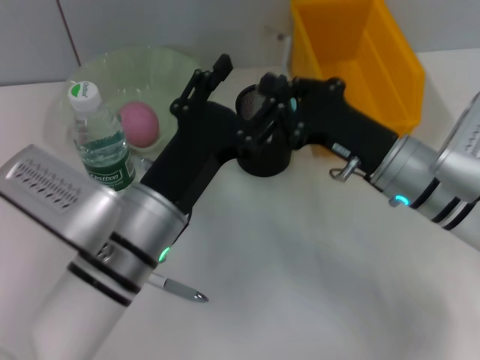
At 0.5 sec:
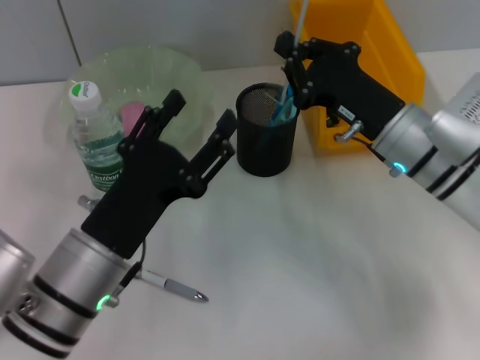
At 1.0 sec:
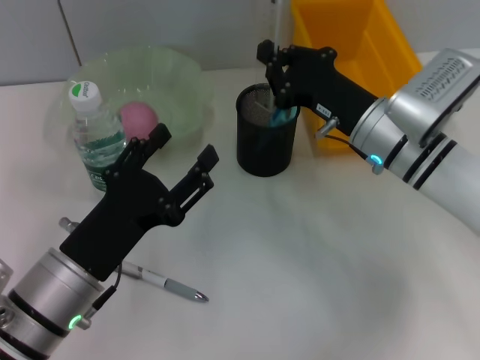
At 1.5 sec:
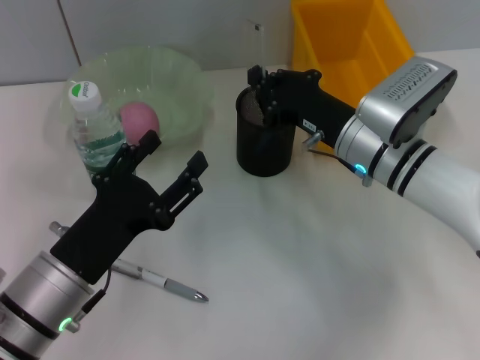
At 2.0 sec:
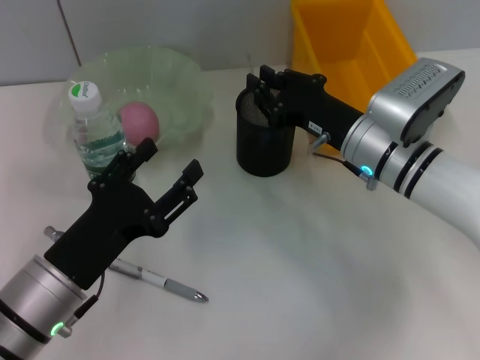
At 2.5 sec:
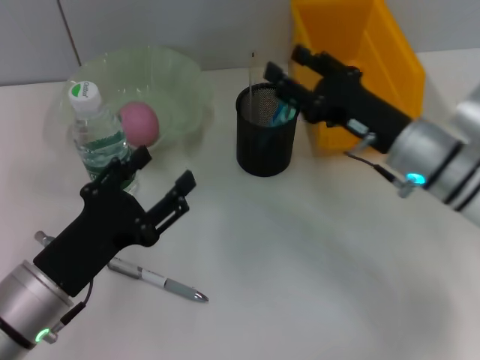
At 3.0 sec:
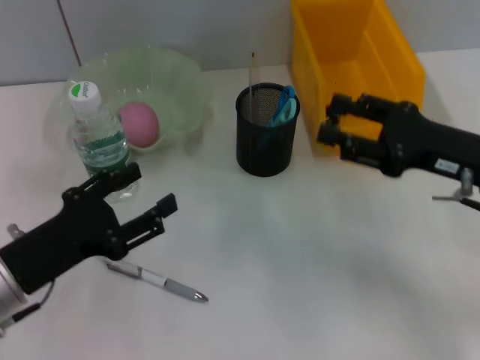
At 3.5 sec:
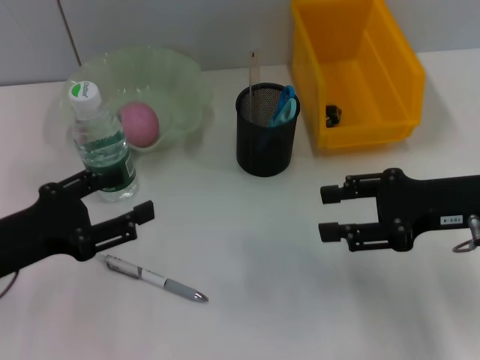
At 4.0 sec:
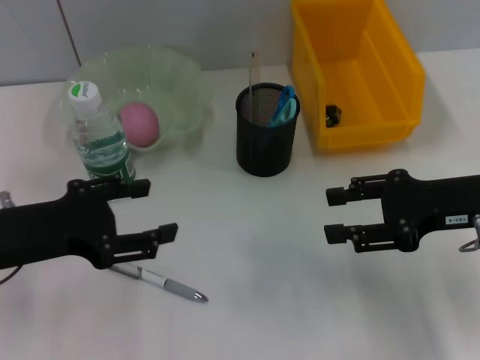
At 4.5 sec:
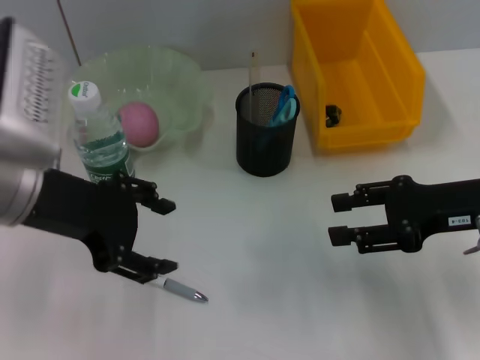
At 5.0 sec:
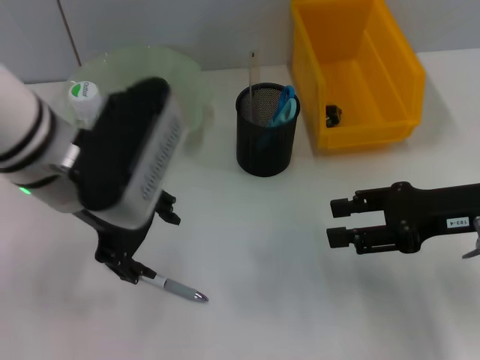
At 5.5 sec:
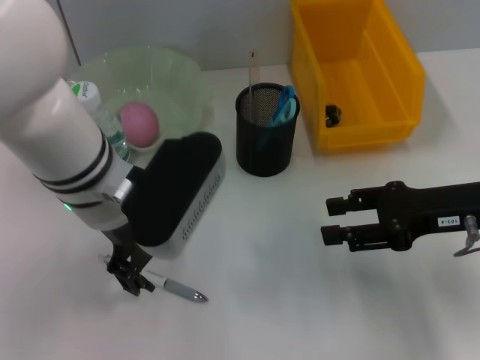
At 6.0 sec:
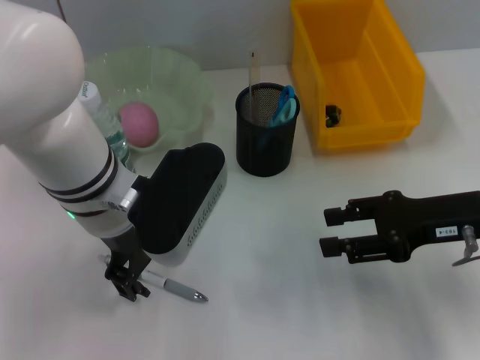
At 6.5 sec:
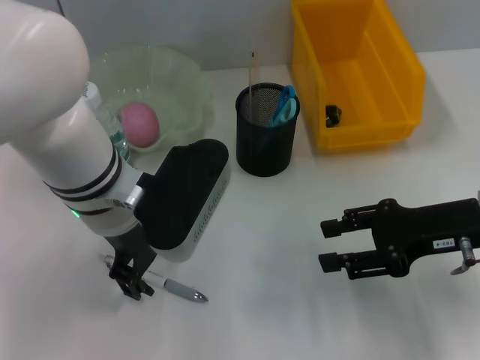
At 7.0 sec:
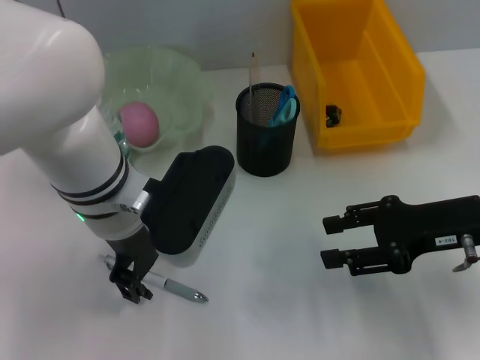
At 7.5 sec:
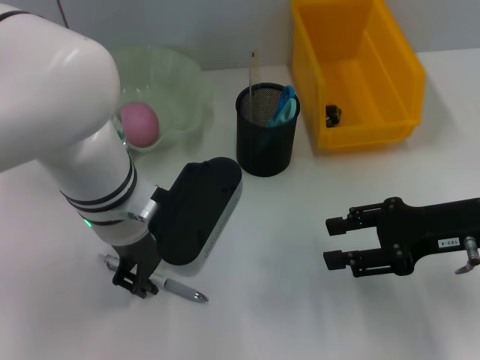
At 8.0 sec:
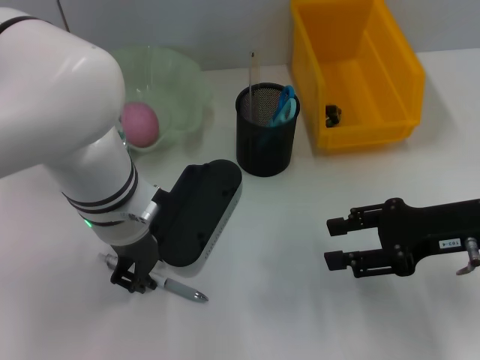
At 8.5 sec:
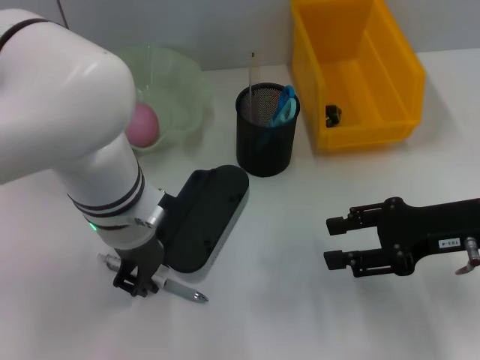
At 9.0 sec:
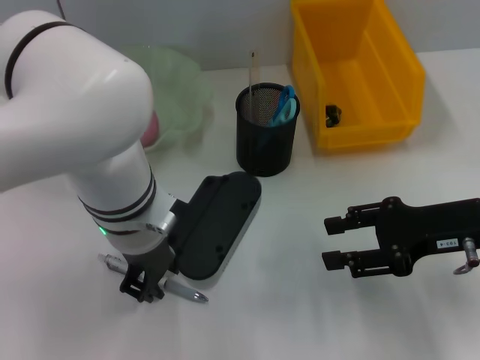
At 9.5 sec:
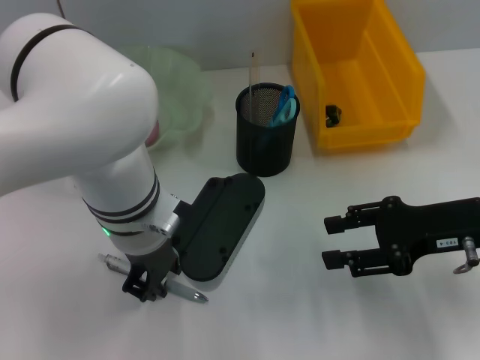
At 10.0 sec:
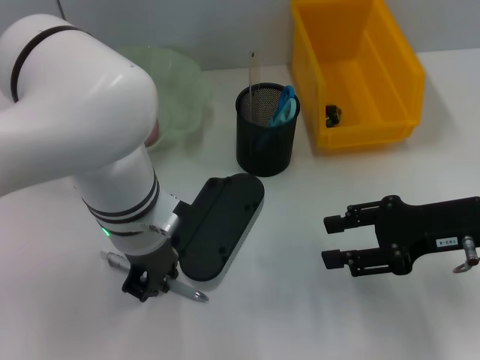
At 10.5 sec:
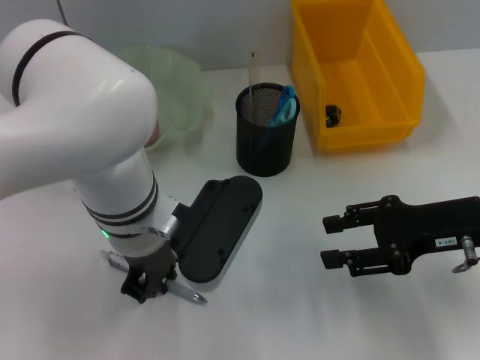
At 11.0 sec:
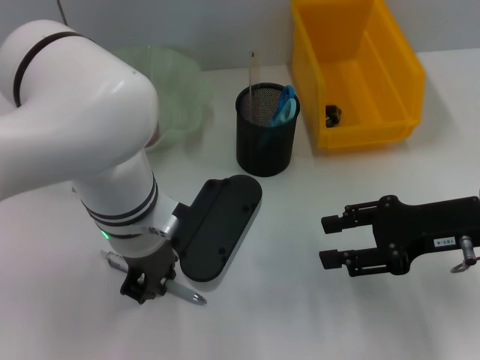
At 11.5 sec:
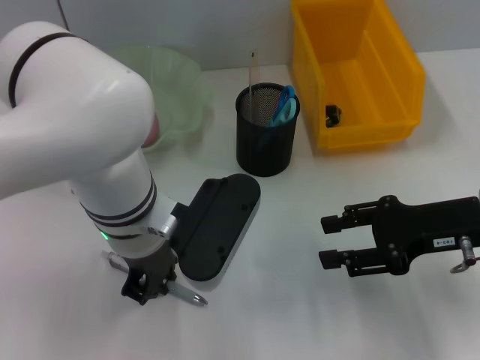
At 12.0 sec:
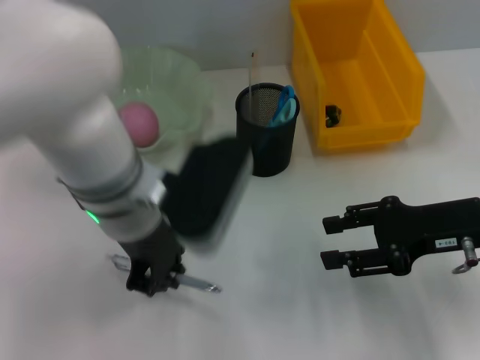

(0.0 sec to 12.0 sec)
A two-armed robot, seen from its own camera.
Step, 0.0 sec - 2.0 sec: Place the ruler into the pen holder with the right hand.
Step, 2.5 sec - 11.5 sec: Grab the gray spring-action pen with the left hand.
0.0 sec - 2.0 sec: The left gripper goes some 10 cm to the left.
2.0 sec - 4.0 sec: The right gripper shifts about 15 cm to the right, backward and upward, and opens its fingers. Meanwhile the left gripper is displaced upward and to the left by about 10 cm.
4.0 sec - 6.0 sec: The left gripper moves to the right and forward, some 15 cm.
6.0 sec - 8.0 sec: The left gripper closes up.
8.0 sec - 10.0 sec: The left gripper closes its fingers.
10.0 sec - 12.0 sec: The grippers move only a little.

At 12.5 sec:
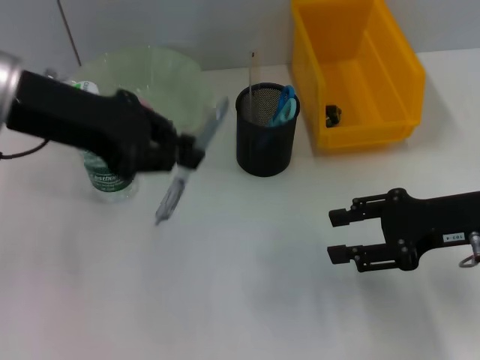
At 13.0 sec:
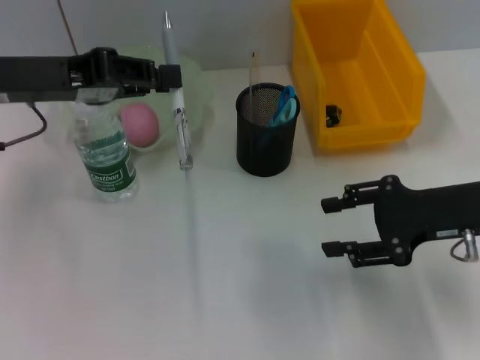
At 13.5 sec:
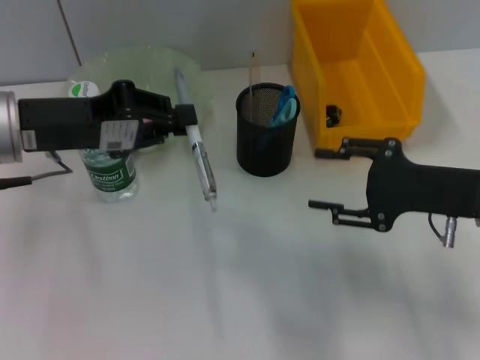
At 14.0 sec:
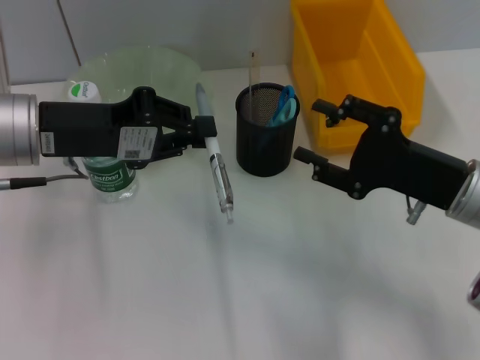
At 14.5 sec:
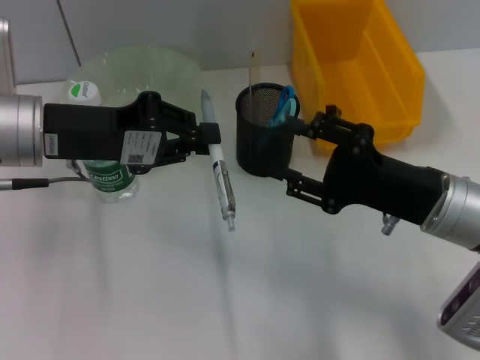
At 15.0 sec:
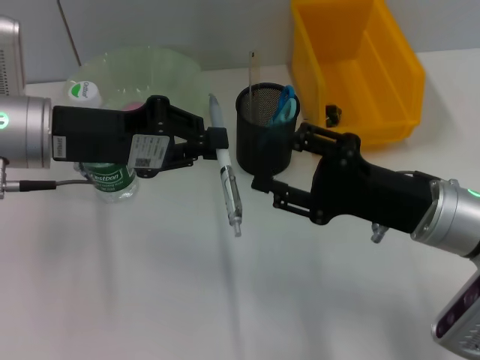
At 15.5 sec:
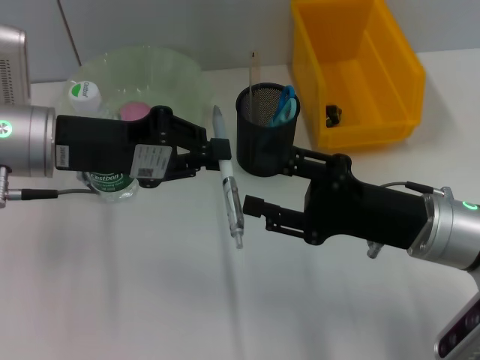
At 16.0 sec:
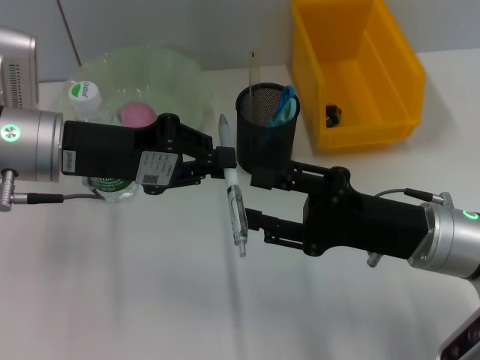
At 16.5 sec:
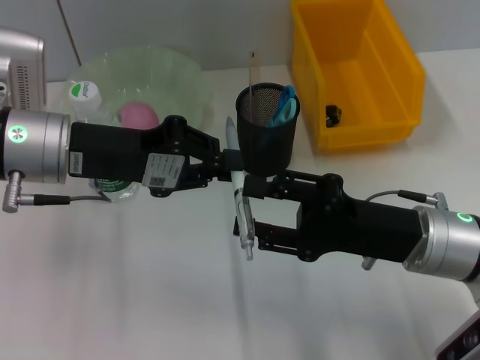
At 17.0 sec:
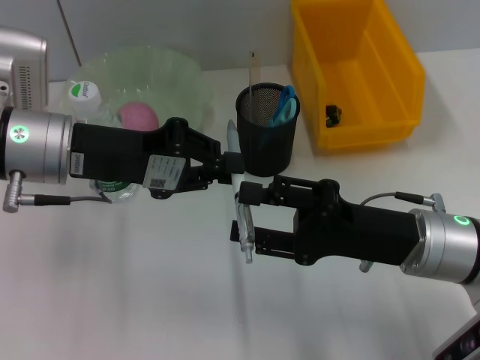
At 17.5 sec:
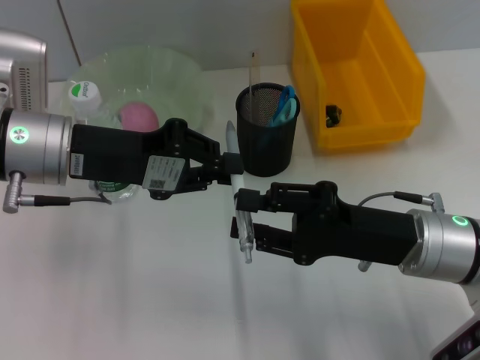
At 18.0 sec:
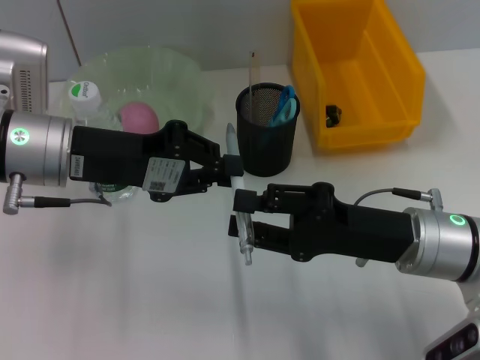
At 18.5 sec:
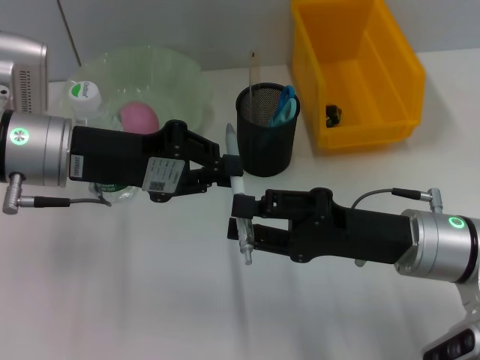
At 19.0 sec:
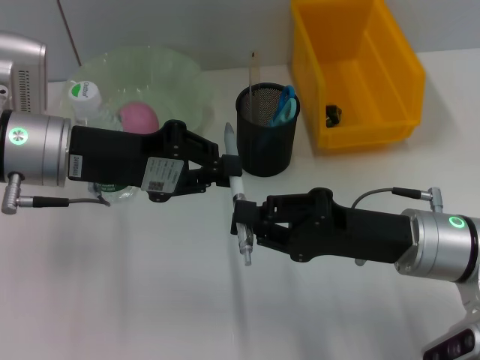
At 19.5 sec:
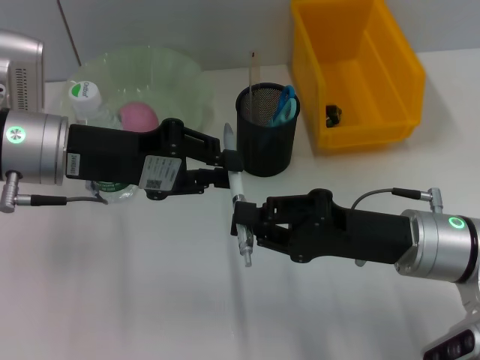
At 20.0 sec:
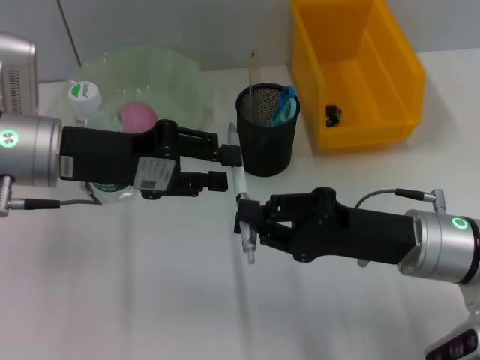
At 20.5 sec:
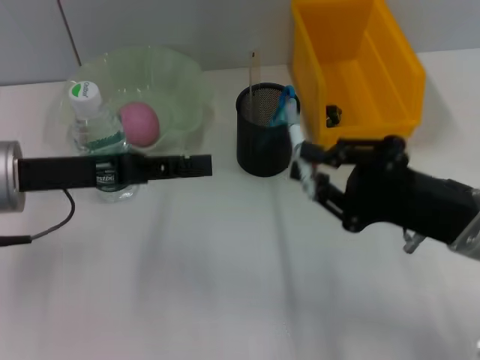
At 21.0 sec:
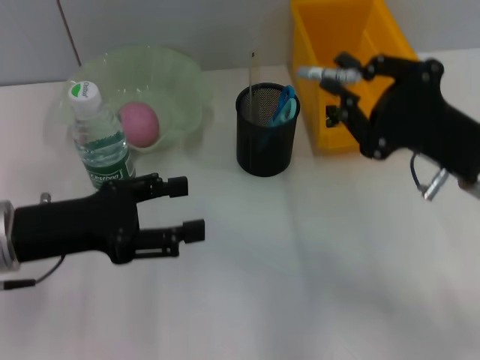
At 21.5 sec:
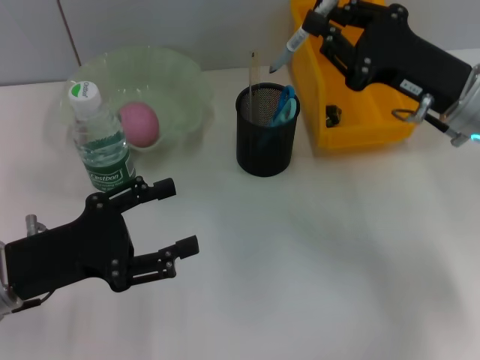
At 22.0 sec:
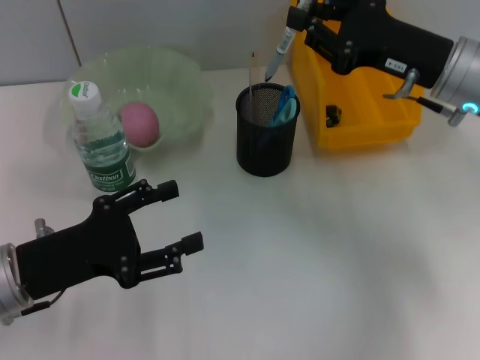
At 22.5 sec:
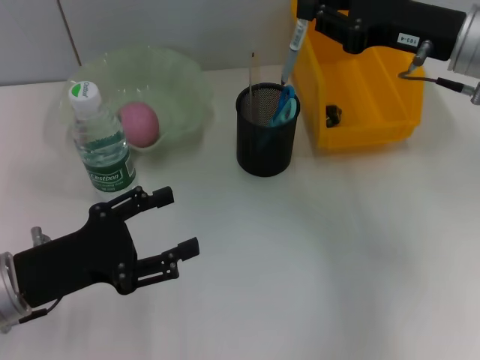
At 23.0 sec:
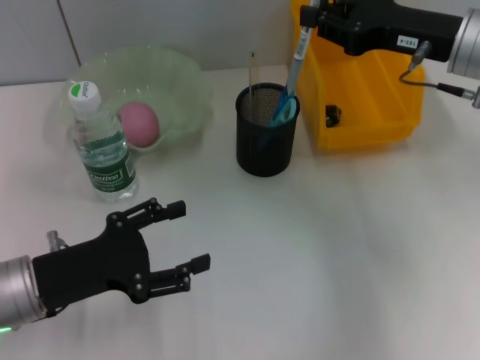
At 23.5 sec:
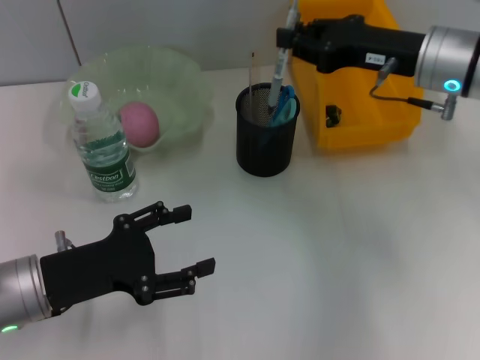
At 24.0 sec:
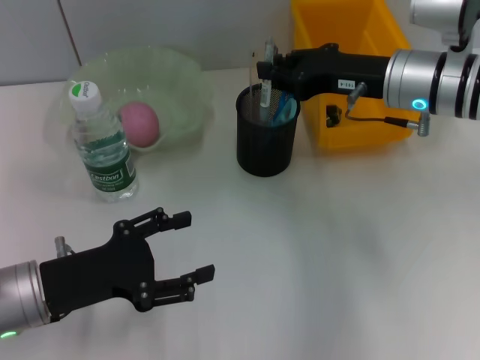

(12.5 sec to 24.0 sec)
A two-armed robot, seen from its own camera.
Step, 12.5 sec - 19.0 sec: Pass the gray spring-action pen from the left hand to the right hand.
12.5 sec - 14.5 sec: The left gripper shifts about 5 cm downward. The right gripper is displaced to the left by about 5 cm.
16.5 sec - 18.5 sec: The right gripper closes.
18.5 sec - 20.0 sec: The left gripper opens its fingers.
20.0 sec - 22.0 sec: The left gripper moves backward and downward, approximately 15 cm, and opens its fingers, while the right gripper heads forward and upward, covering some 15 cm.

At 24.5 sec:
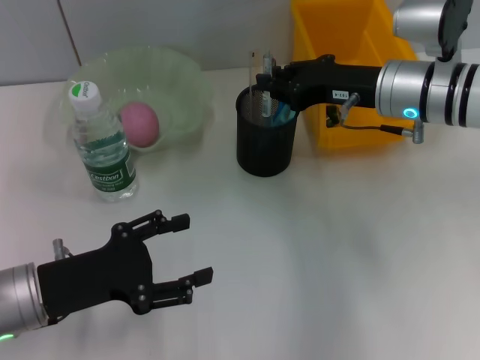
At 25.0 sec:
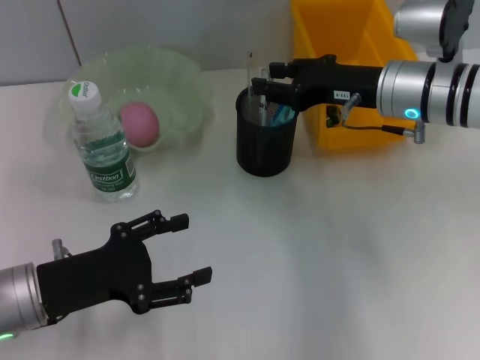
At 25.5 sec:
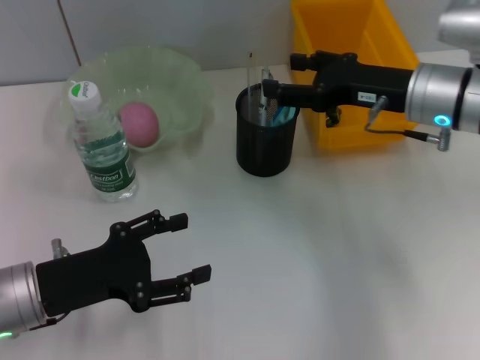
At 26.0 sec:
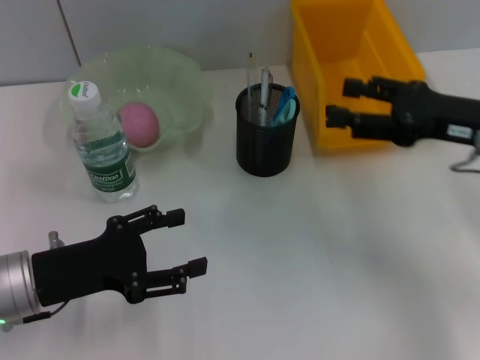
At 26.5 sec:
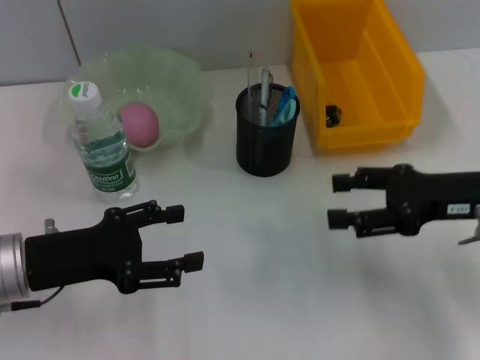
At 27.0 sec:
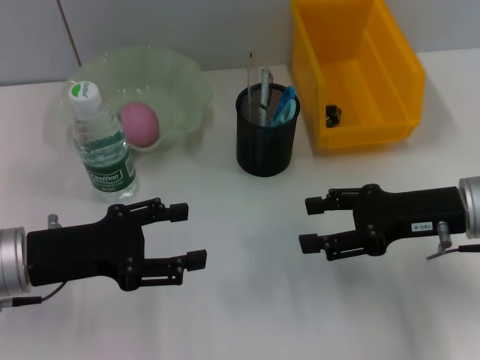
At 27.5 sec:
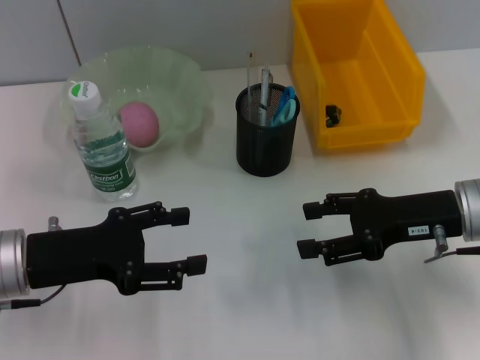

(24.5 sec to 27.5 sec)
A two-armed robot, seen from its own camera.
24.5 sec - 26.0 sec: The right gripper shifts approximately 10 cm to the right and backward, and opens up.
26.0 sec - 27.5 sec: The right gripper shifts roughly 5 cm downward.
